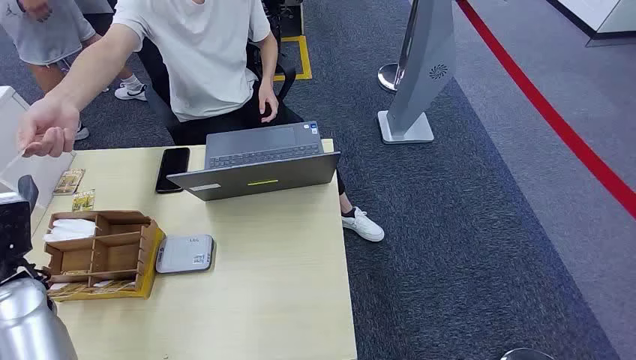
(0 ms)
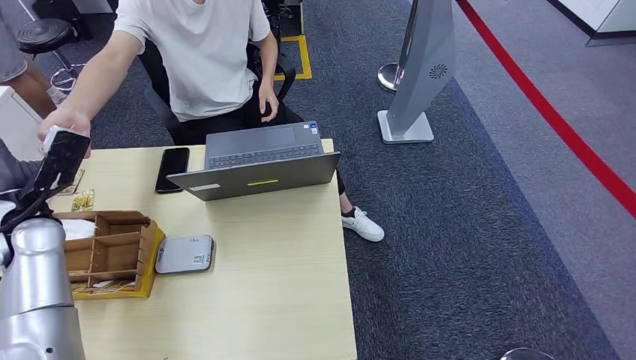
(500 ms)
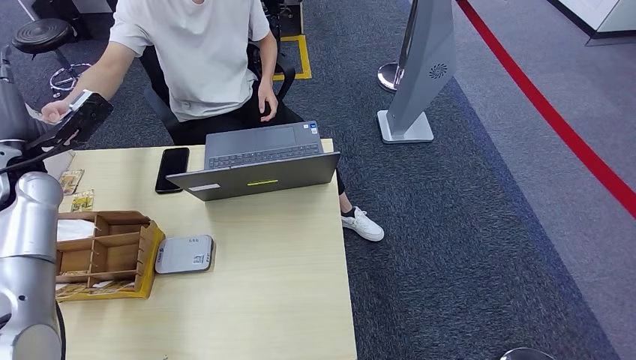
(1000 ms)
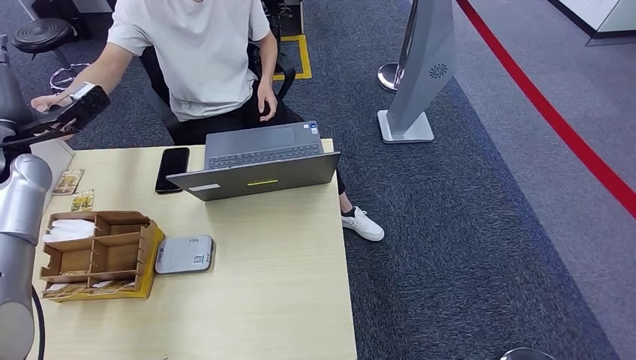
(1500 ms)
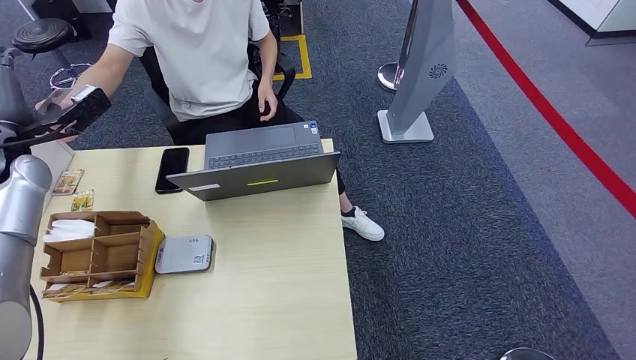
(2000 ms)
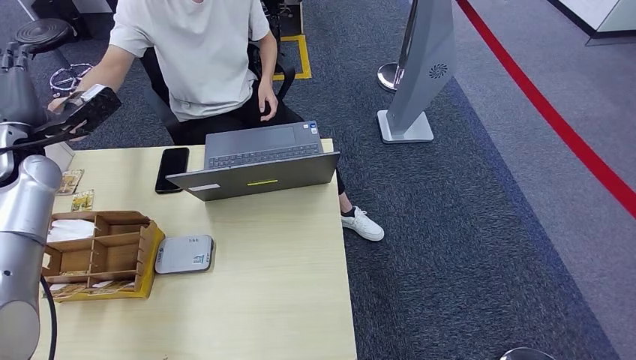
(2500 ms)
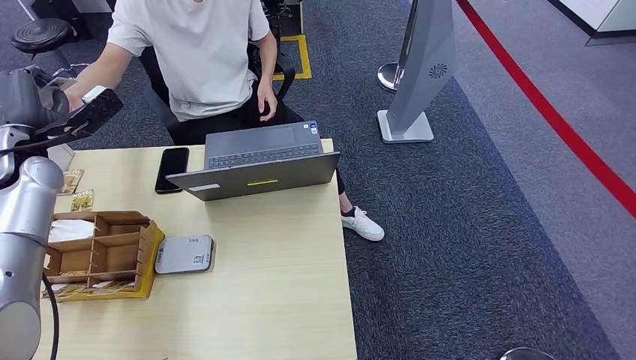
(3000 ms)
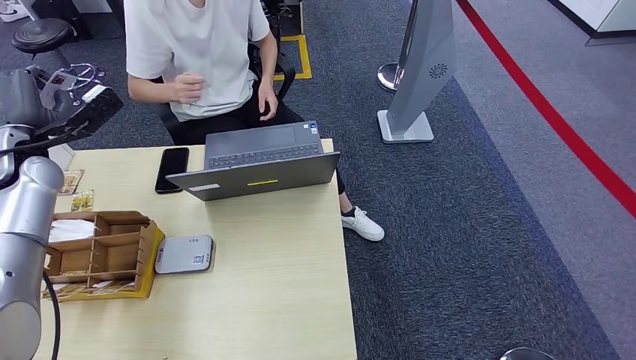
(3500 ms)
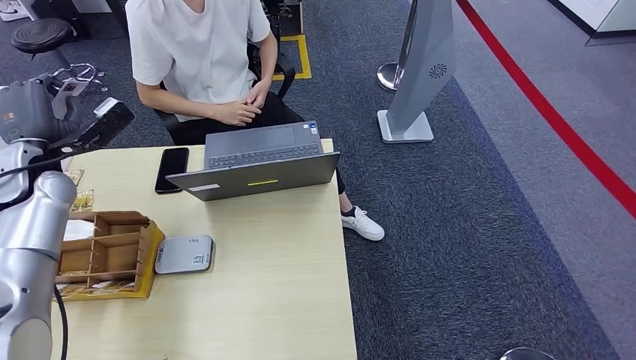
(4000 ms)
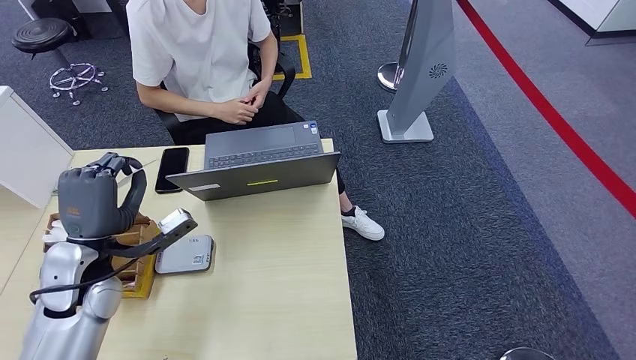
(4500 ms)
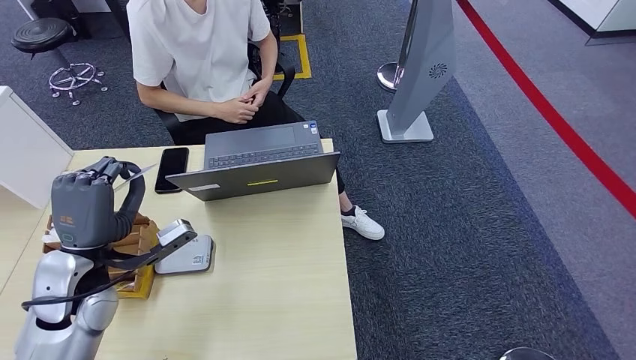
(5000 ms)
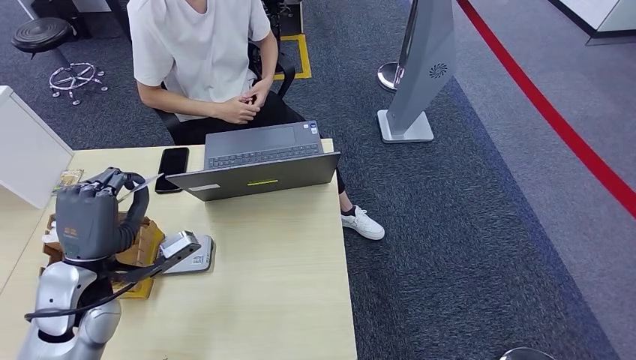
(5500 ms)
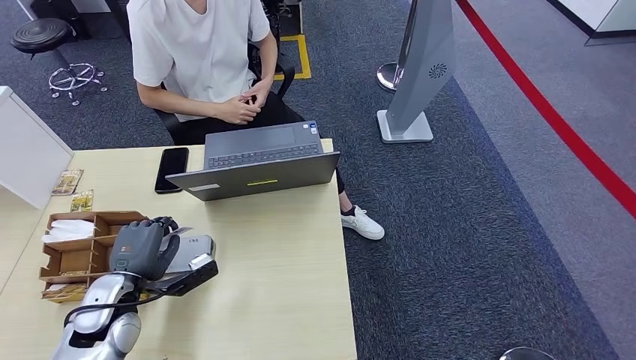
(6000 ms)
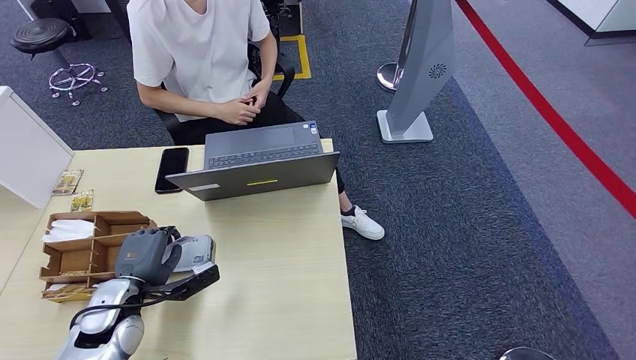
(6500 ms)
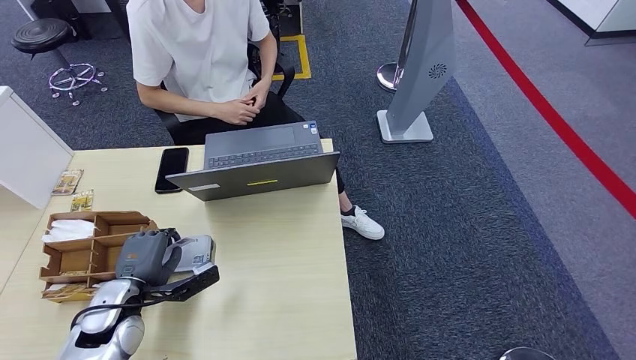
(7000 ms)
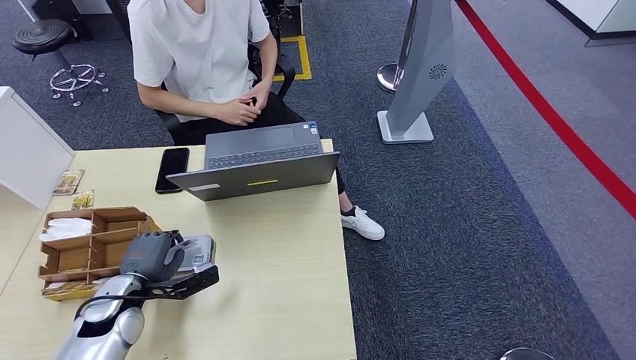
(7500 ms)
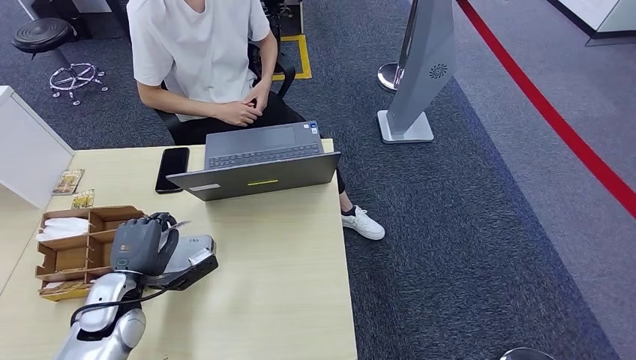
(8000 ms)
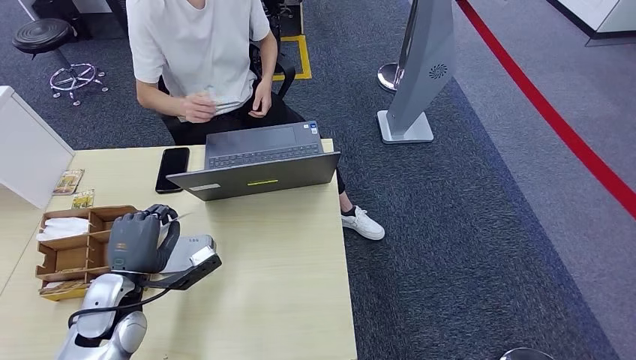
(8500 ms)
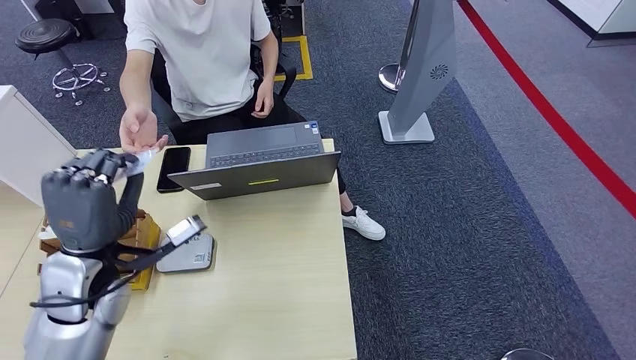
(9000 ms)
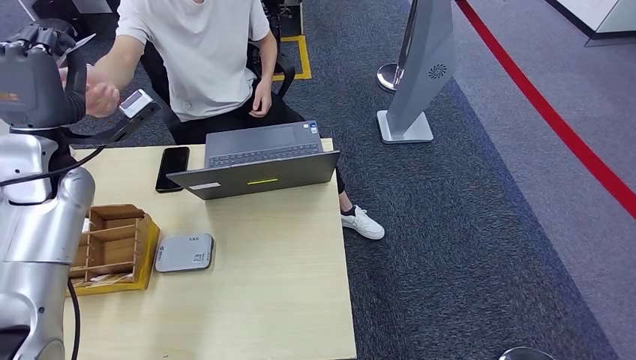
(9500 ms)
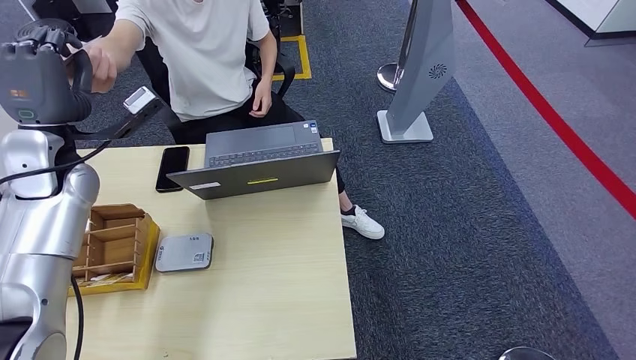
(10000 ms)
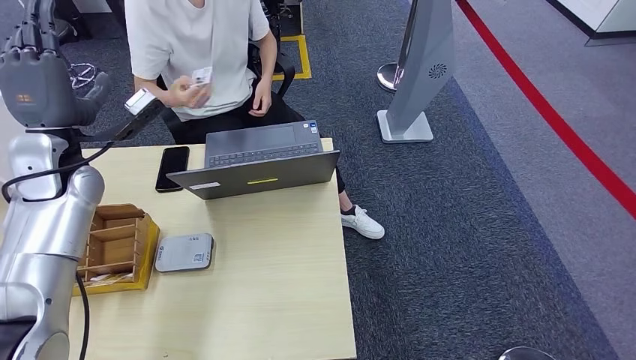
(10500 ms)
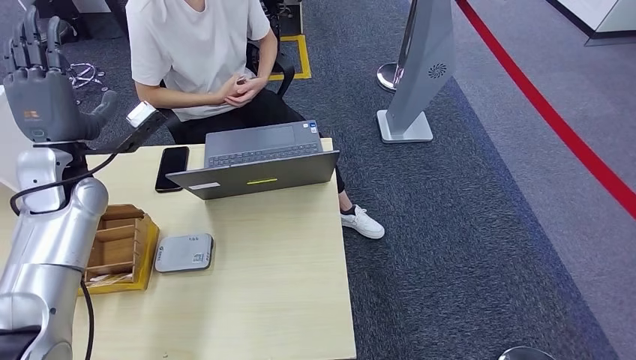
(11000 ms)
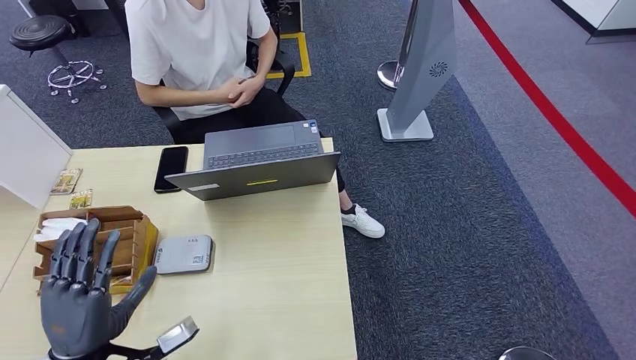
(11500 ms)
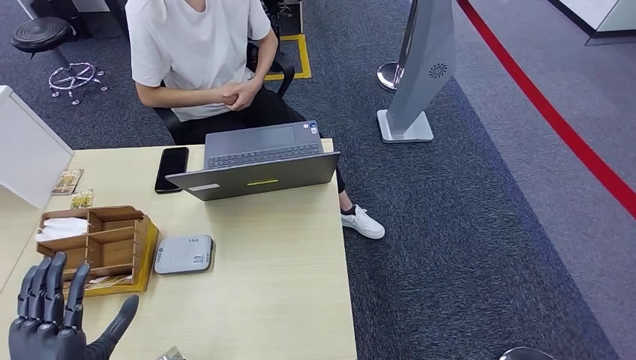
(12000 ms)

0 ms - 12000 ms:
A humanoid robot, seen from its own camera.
Step, 0 ms - 3000 ms: Take the ID card from the person's hand.
Step, 3500 ms - 8000 ms: Place the ID card on the card reader.
Step, 9000 ms - 11500 ms: Hand the ID card to the person.
2000 ms - 4000 ms: The hands make only small movements.
4000 ms - 6000 ms: The left hand moves backward, downward and to the right, roughly 25 cm.
6000 ms - 8000 ms: The hands move only a little.
8000 ms - 10000 ms: The left hand goes some 30 cm upward and forward.
10000 ms - 12000 ms: The left hand is displaced backward and downward by approximately 35 cm.

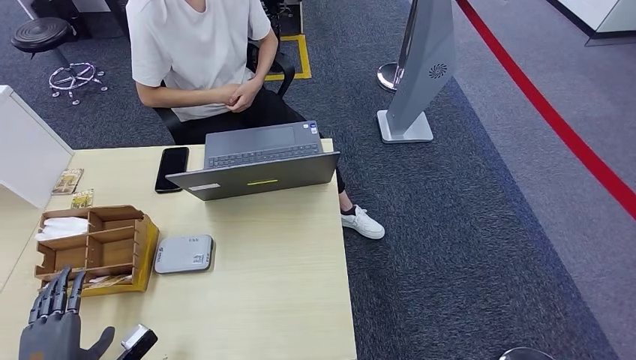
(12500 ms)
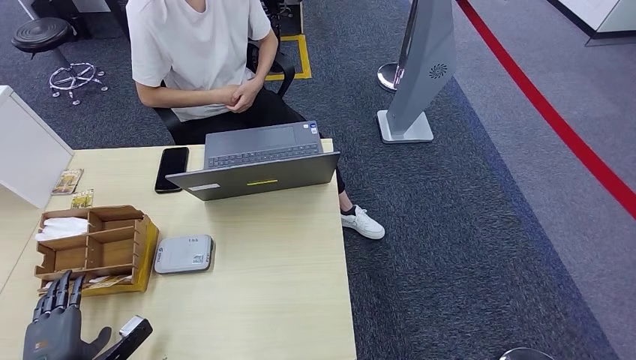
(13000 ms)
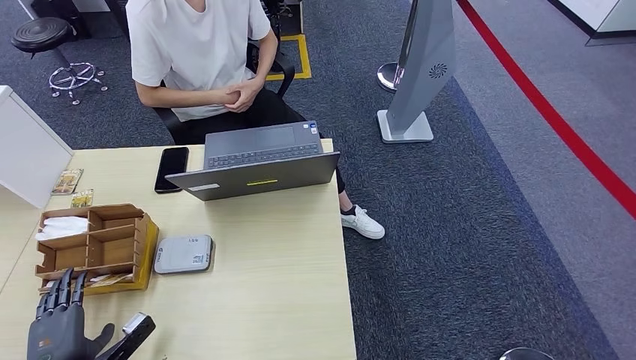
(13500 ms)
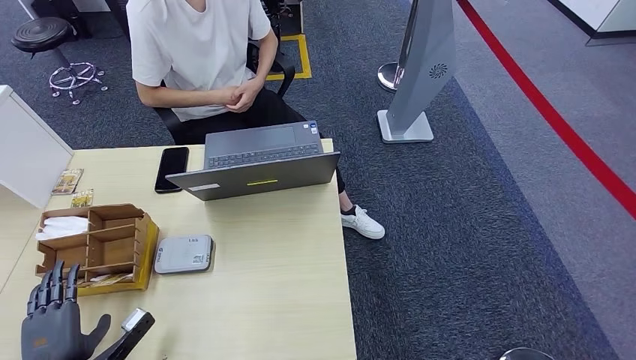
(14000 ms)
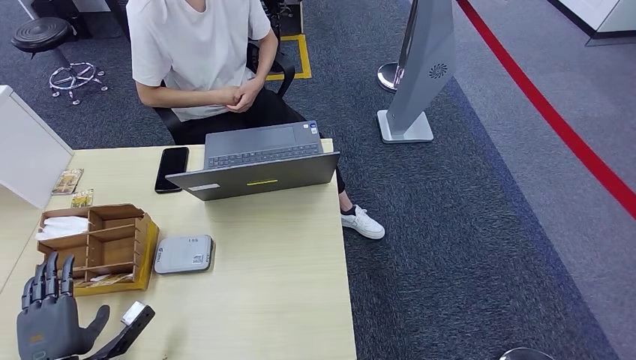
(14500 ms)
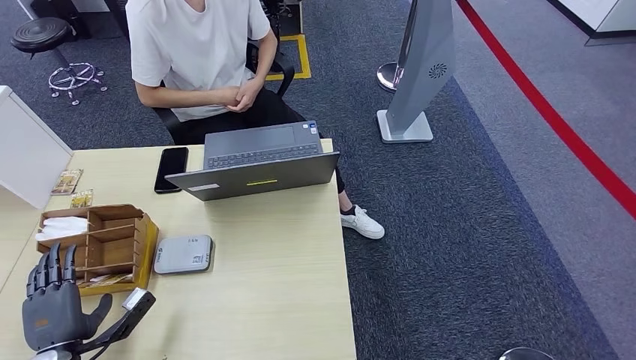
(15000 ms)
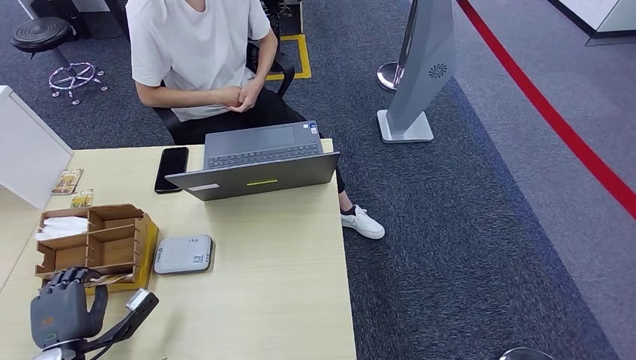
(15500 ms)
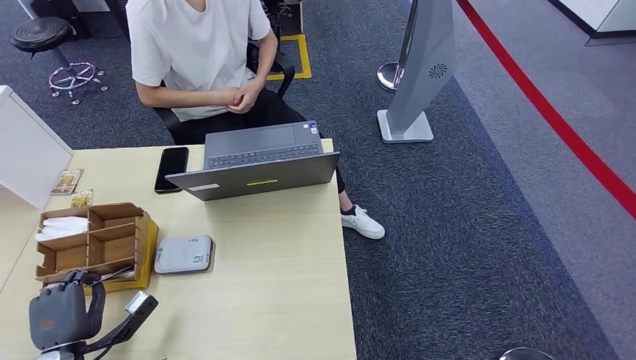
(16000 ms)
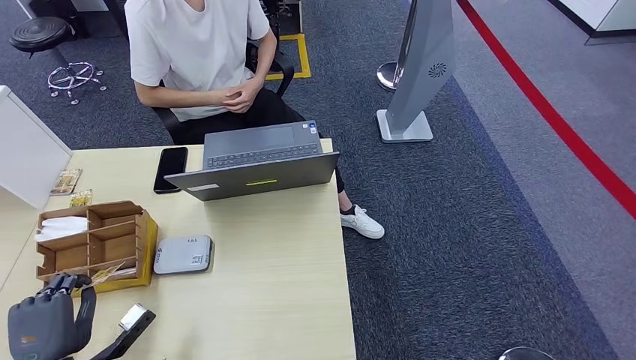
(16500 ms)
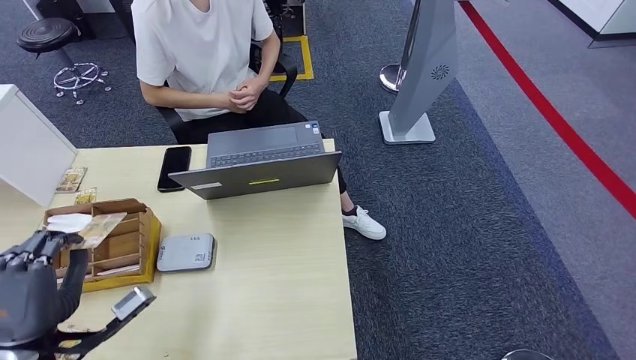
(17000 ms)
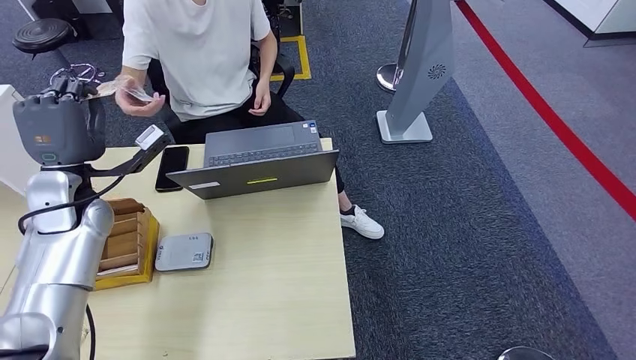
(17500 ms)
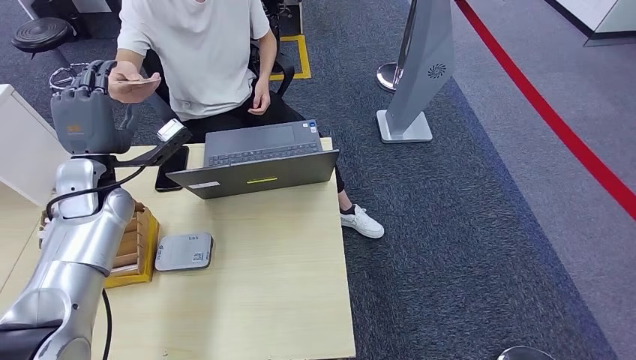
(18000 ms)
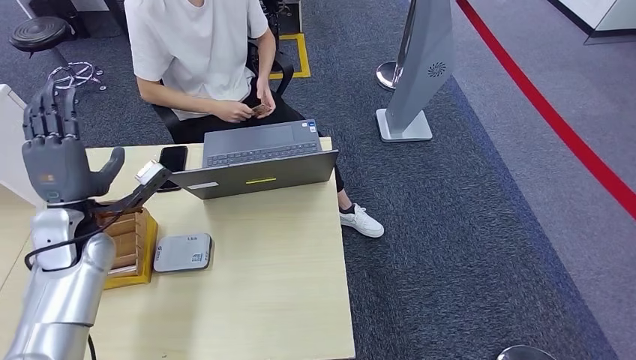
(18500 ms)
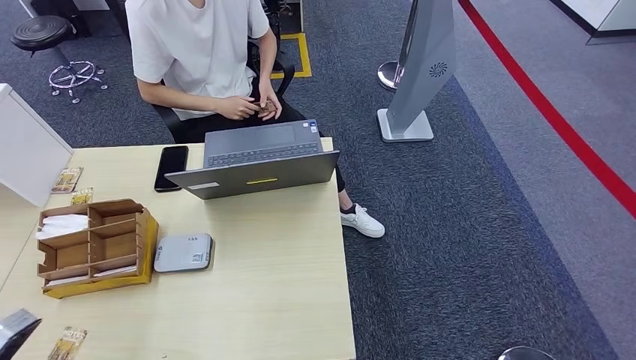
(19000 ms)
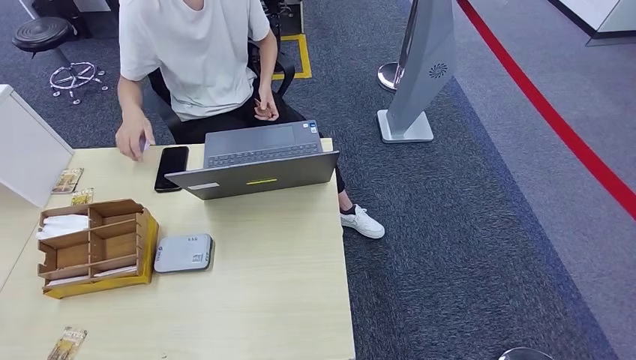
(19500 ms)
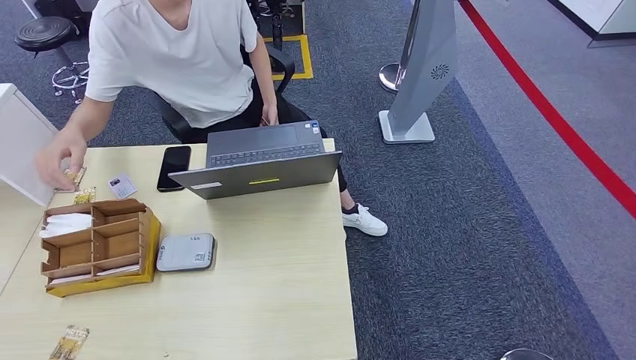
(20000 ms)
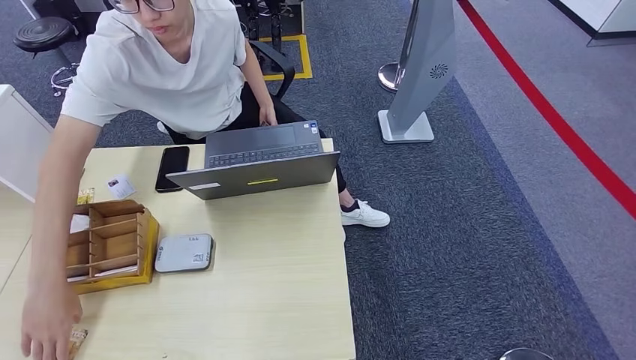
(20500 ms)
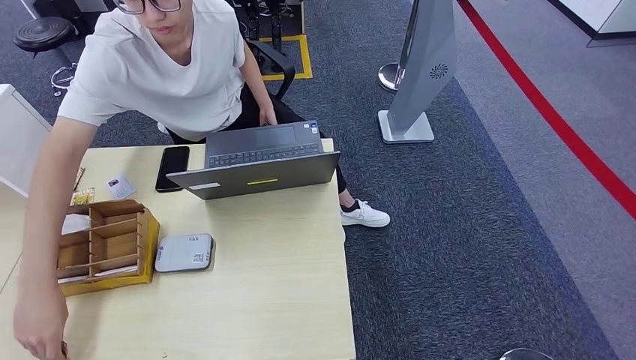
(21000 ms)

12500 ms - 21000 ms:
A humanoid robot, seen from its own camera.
Step, 12500 ms - 17000 ms: Pick up the room key from the key card box.
Step, 17500 ms - 21000 ms: Hand the room key to the person.
12500 ms - 14500 ms: The hands move only a little.
14500 ms - 16500 ms: The hands make only small movements.
16500 ms - 19000 ms: The left hand moves upward and to the left, roughly 10 cm, and travels forward and back again, about 25 cm each way.
19000 ms - 21000 ms: The left hand moves downward and backward, approximately 35 cm.
